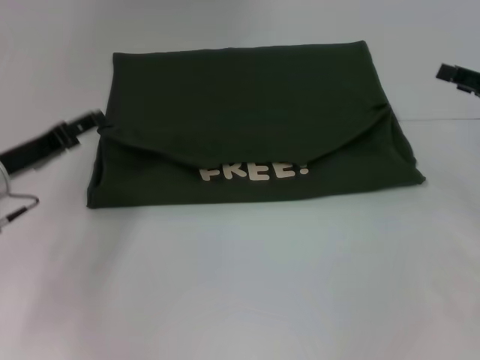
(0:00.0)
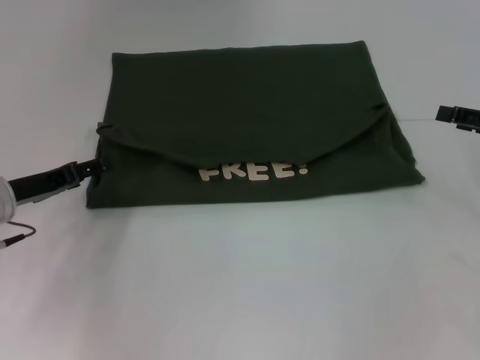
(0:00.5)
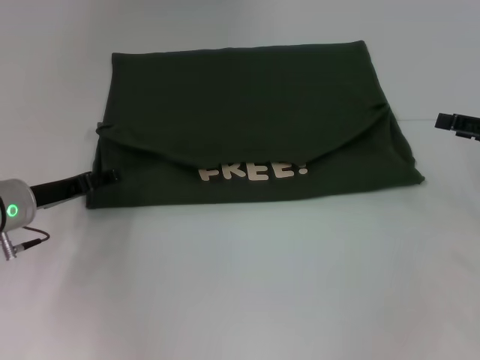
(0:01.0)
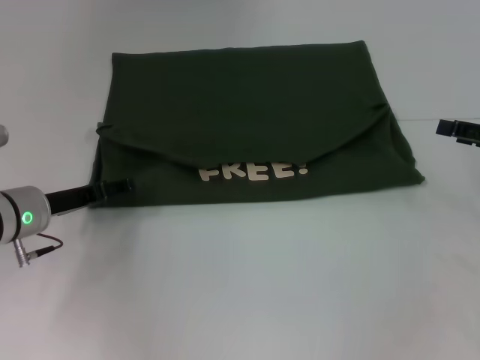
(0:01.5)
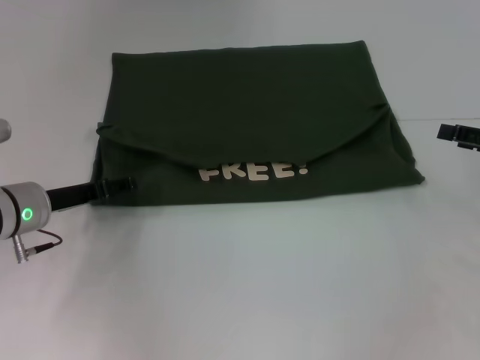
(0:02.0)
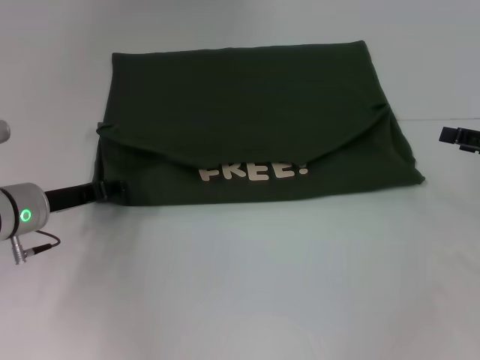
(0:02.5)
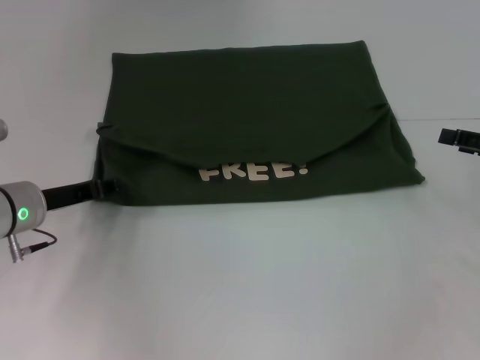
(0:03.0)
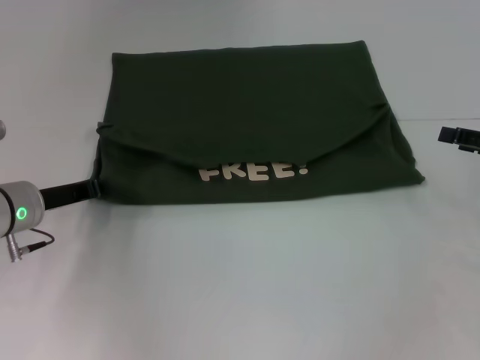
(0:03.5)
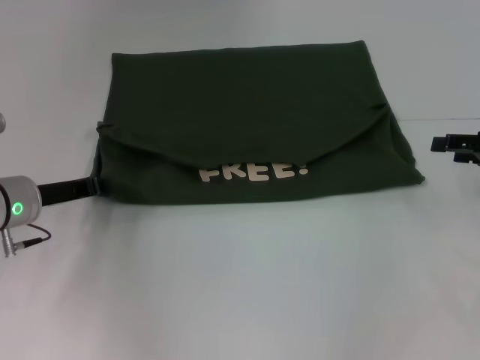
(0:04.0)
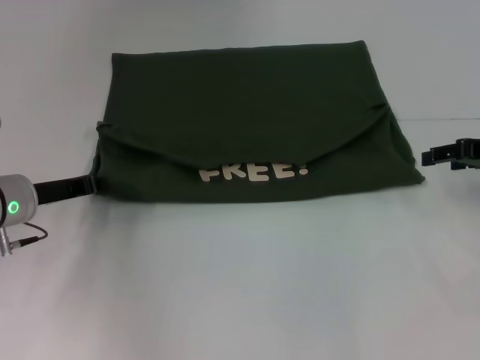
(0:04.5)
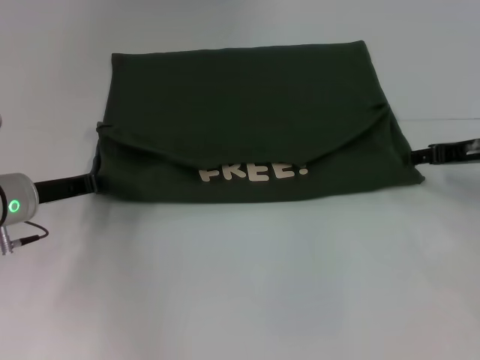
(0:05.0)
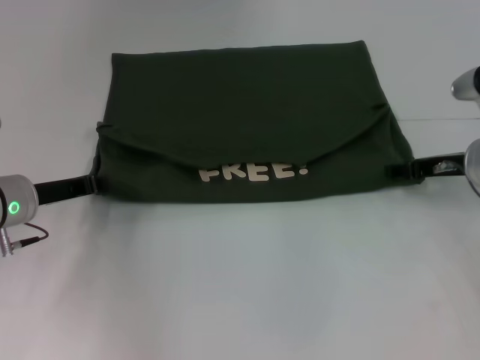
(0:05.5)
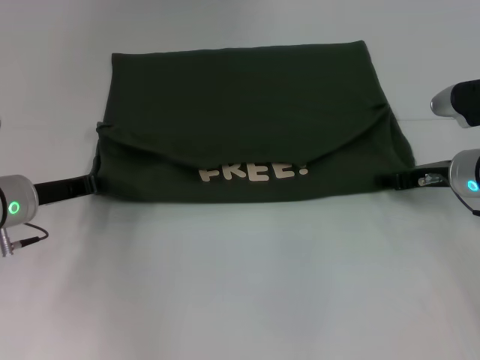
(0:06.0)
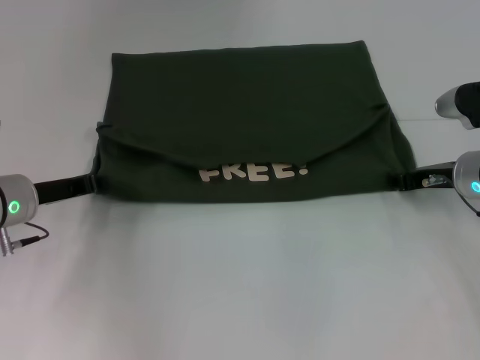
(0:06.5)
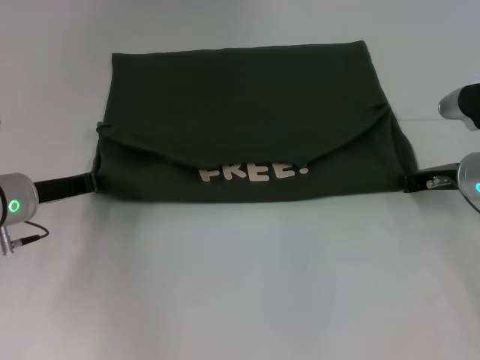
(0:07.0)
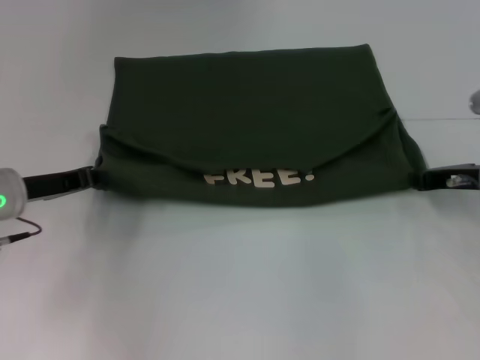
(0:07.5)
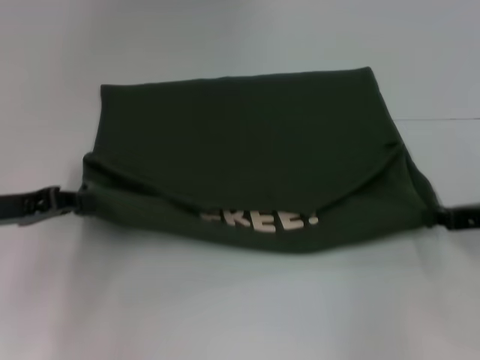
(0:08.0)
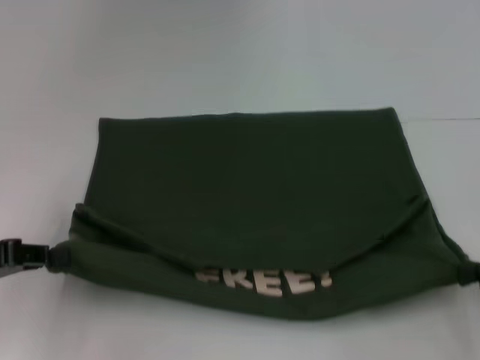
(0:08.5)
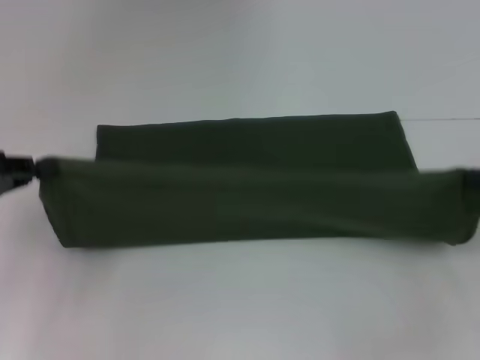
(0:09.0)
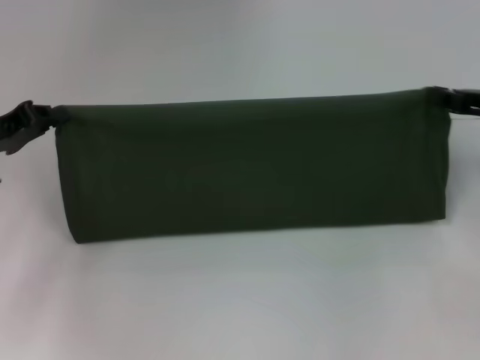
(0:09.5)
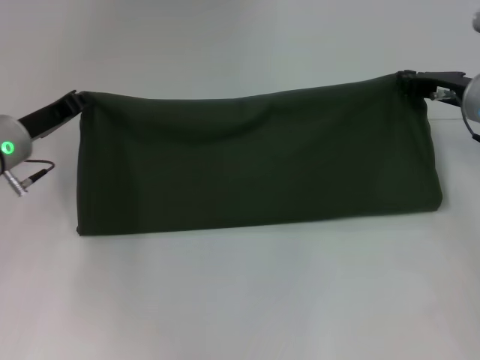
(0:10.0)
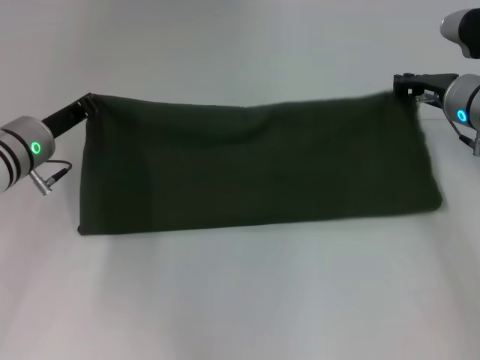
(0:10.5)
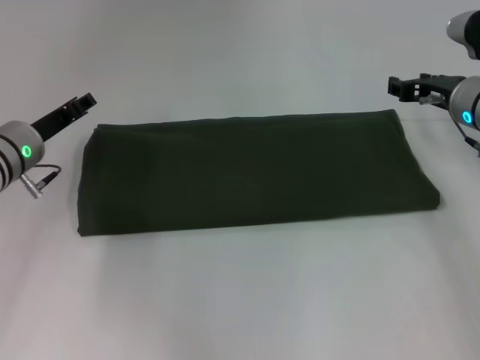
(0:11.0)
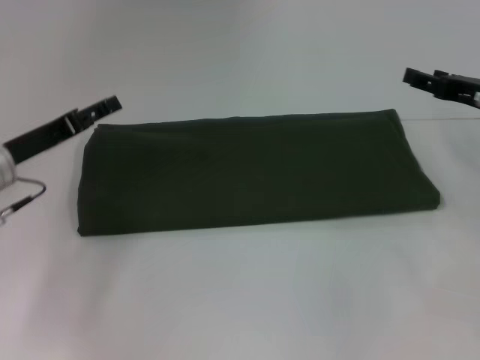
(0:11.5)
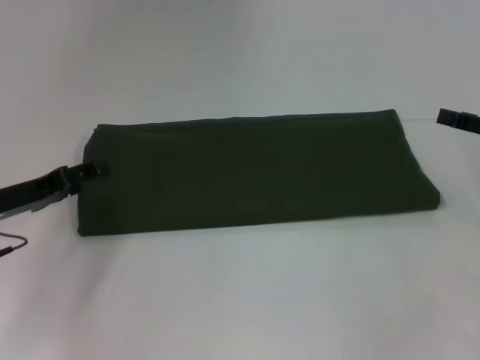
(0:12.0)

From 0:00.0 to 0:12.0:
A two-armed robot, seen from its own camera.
Step, from 0:00.0 to 0:08.0: Pull the clothes with your left hand.
Step, from 0:00.0 to 0:08.0: Pull the clothes with your right hand.
Step, from 0:08.5 to 0:10.5: Fold the clothes with your right hand.
From 0:02.0 to 0:04.0: The left gripper closes.
From 0:04.0 to 0:06.0: The right gripper travels to the left and downward by roughly 10 cm.
From 0:06.0 to 0:08.0: The left gripper moves about 10 cm; the right gripper goes some 10 cm backward and to the right, and closes.
From 0:08.0 to 0:10.0: The right gripper goes approximately 10 cm forward and to the left; the left gripper moves forward, some 10 cm.
From 0:10.0 to 0:12.0: The right gripper goes about 15 cm to the right and backward, and opens up. The left gripper goes approximately 5 cm backward, and opens its fingers.

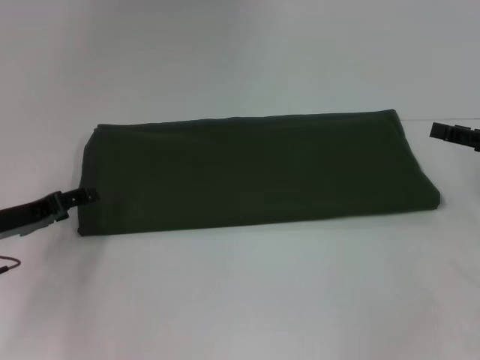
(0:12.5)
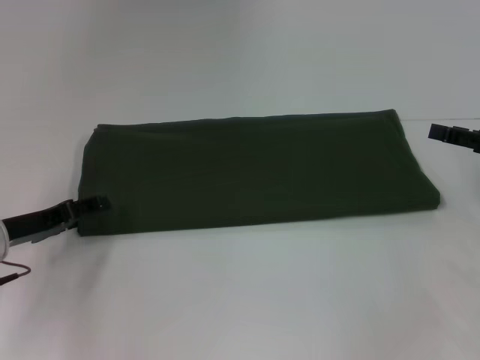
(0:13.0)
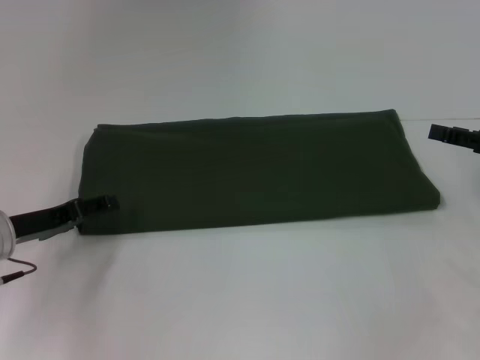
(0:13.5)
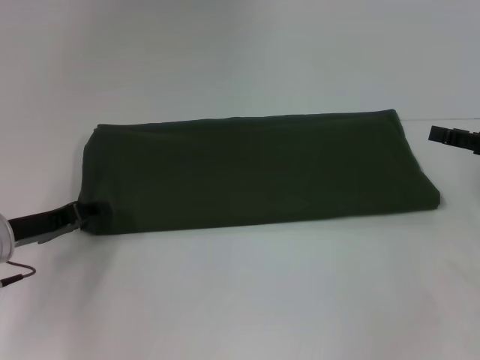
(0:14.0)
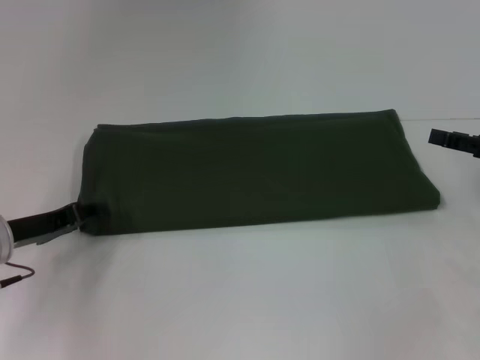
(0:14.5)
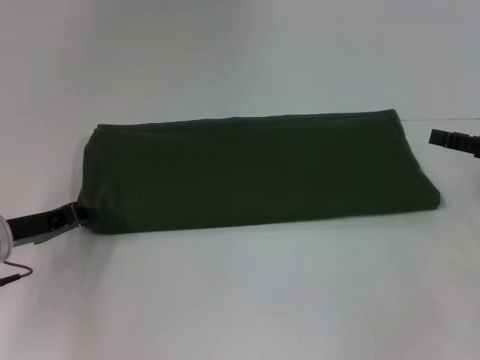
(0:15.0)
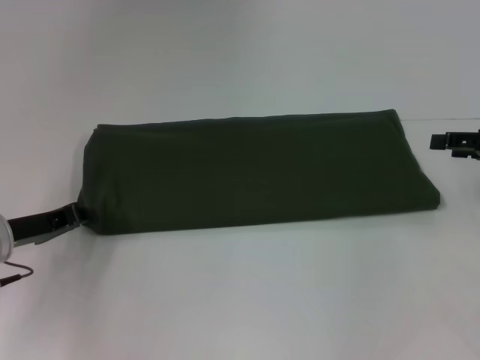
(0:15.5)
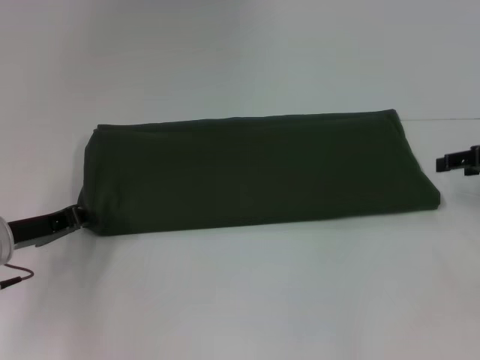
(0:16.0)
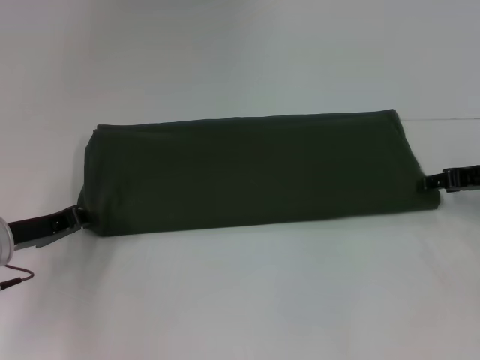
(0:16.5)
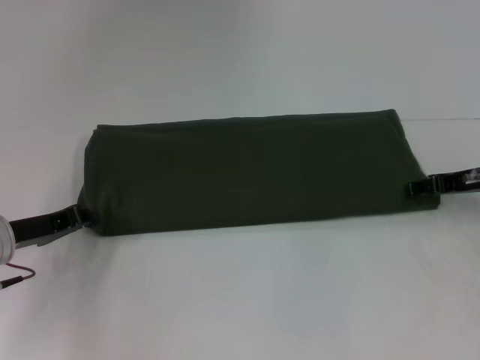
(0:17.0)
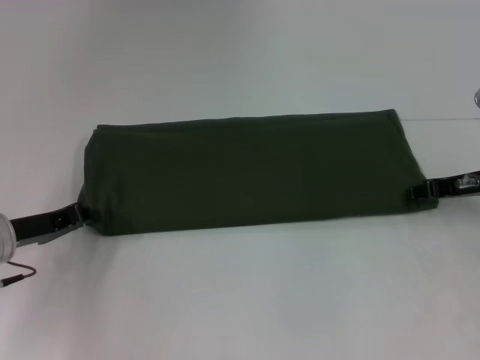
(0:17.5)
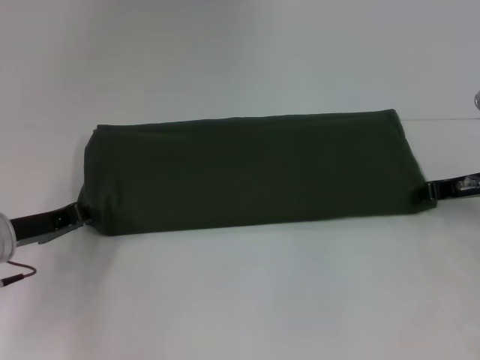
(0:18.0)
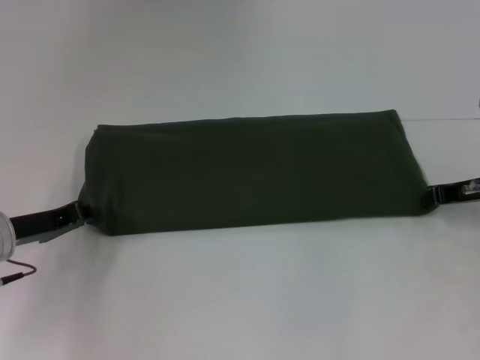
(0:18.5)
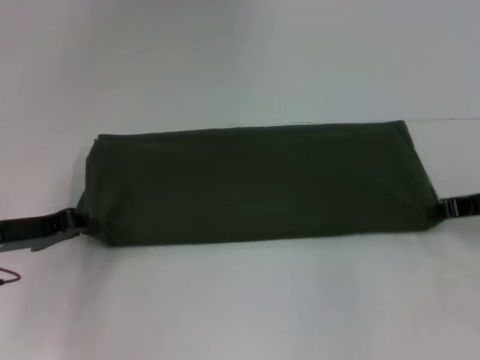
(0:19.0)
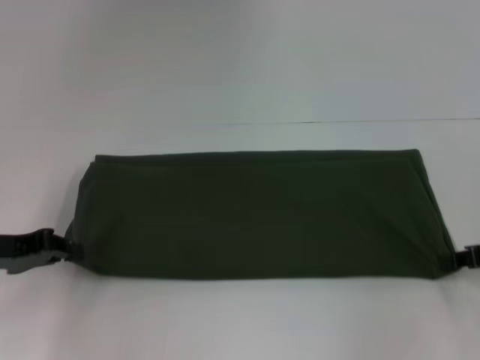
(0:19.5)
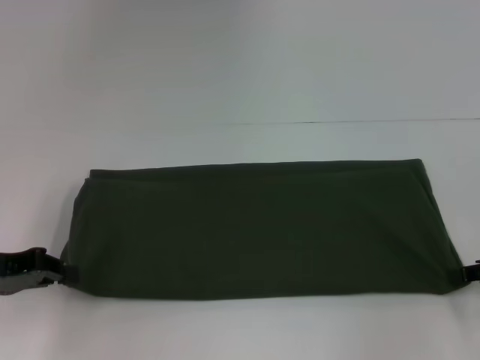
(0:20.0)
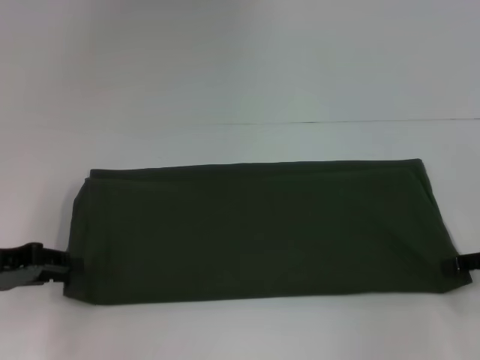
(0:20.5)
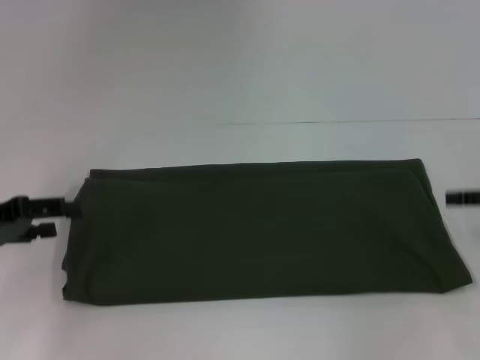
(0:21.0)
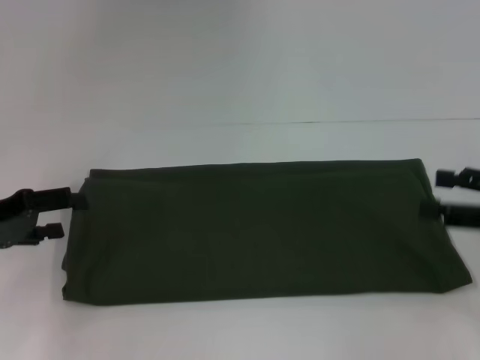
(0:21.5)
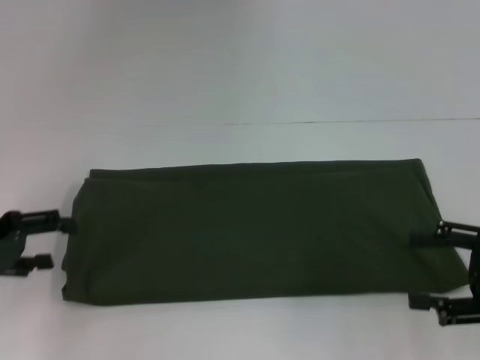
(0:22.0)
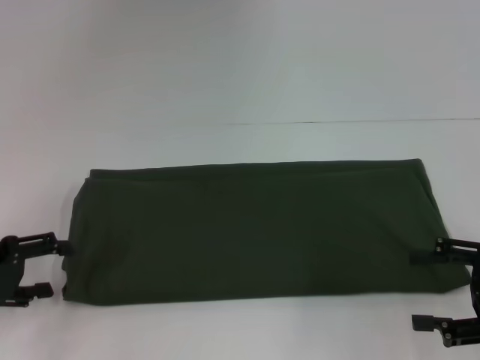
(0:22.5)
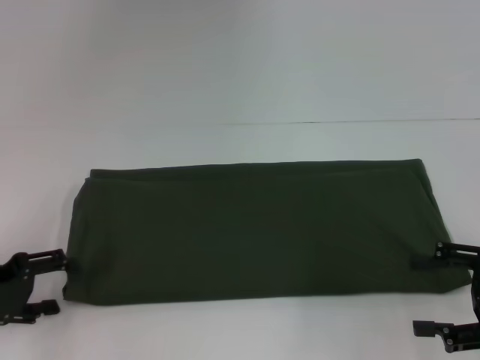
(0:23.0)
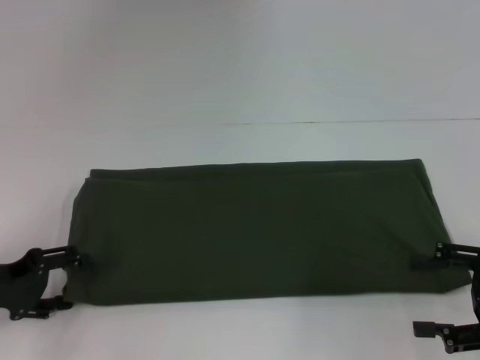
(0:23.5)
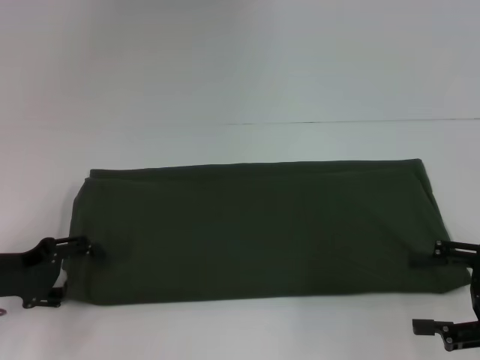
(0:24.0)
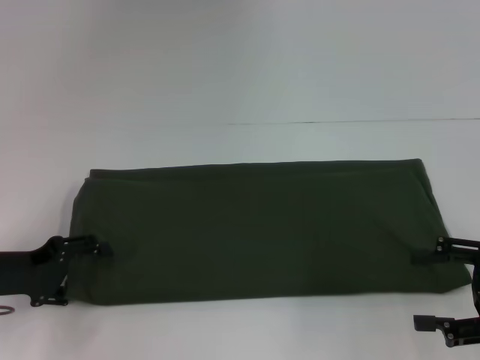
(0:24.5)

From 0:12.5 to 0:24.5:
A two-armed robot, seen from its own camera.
From 0:12.5 to 0:14.5: The left gripper closes its fingers.
From 0:14.5 to 0:16.5: The left gripper closes up. Meanwhile the right gripper shifts by approximately 5 cm.
From 0:16.5 to 0:18.5: The right gripper closes its fingers.
From 0:18.5 to 0:20.5: The right gripper moves backward and to the right, about 10 cm. Meanwhile the left gripper changes place by some 5 cm.
From 0:20.5 to 0:22.5: The left gripper opens its fingers, while the right gripper is displaced backward by about 5 cm, and opens.
From 0:22.5 to 0:24.5: The left gripper changes place by some 5 cm.

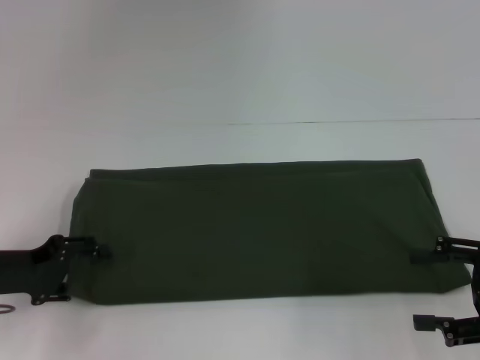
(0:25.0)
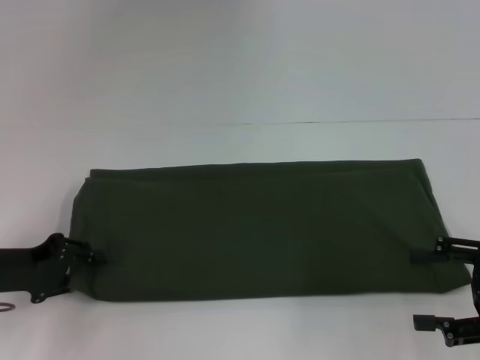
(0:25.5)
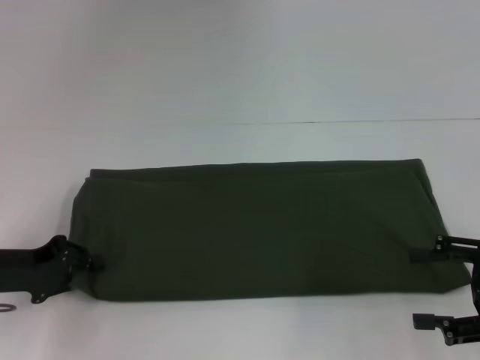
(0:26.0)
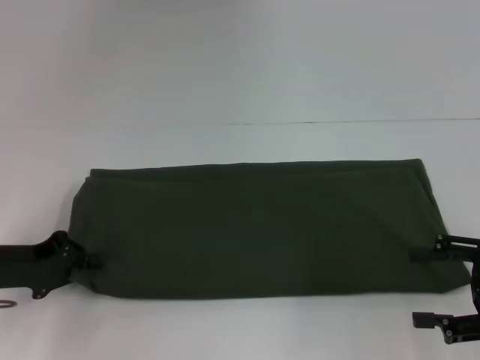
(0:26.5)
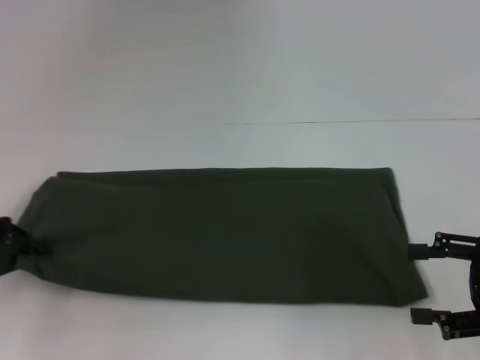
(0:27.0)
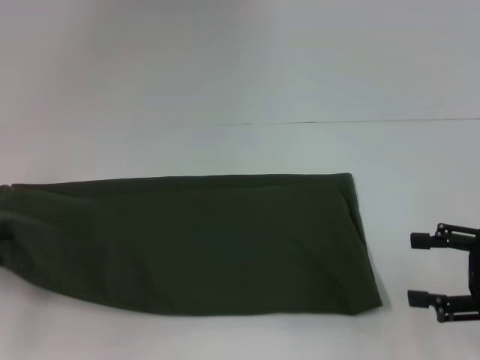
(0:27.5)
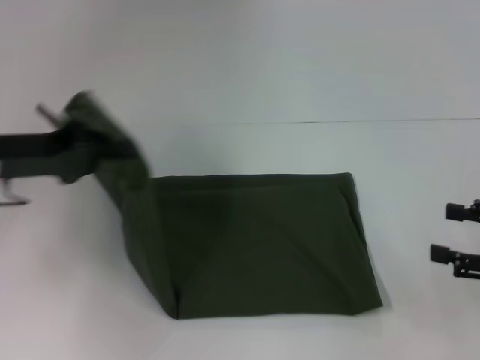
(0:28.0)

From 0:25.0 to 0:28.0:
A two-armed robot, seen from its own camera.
From 0:25.0 to 0:26.5: The left gripper closes its fingers.
From 0:26.5 to 0:28.0: The left gripper is displaced upward by roughly 10 cm, and travels to the left and back again, about 10 cm each way.
